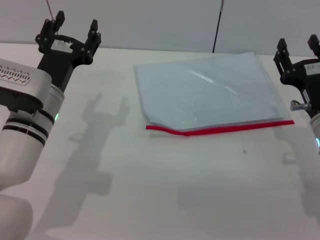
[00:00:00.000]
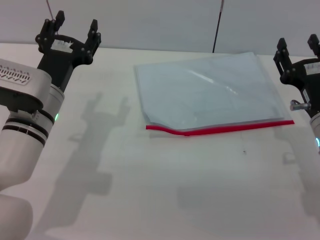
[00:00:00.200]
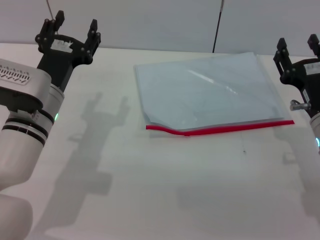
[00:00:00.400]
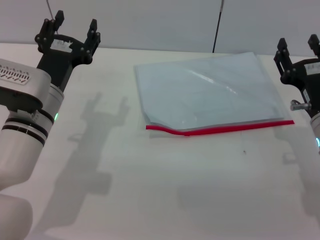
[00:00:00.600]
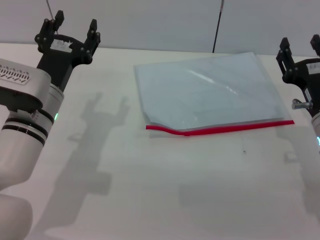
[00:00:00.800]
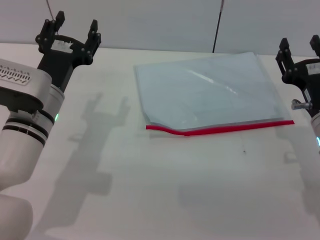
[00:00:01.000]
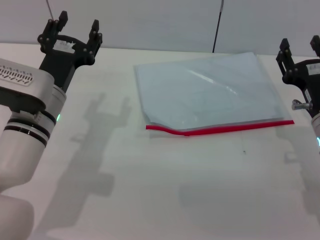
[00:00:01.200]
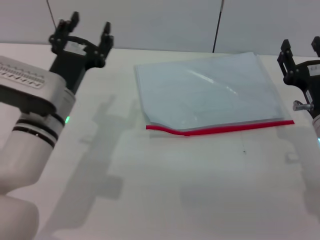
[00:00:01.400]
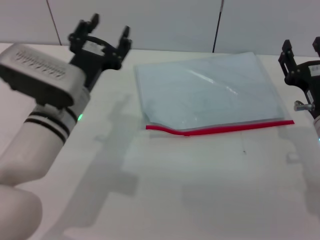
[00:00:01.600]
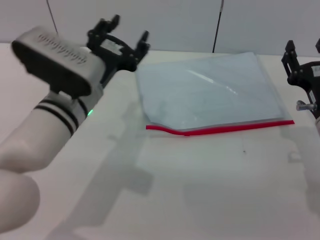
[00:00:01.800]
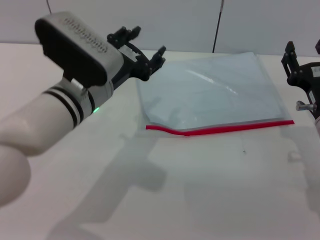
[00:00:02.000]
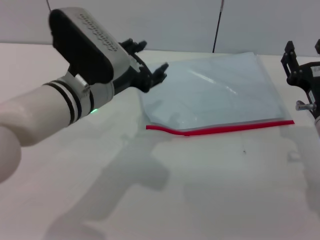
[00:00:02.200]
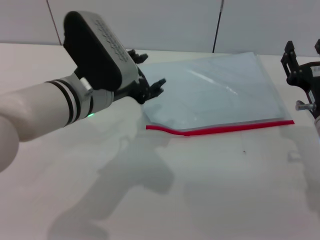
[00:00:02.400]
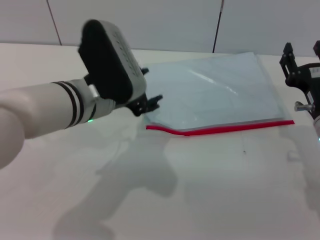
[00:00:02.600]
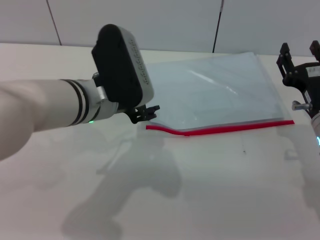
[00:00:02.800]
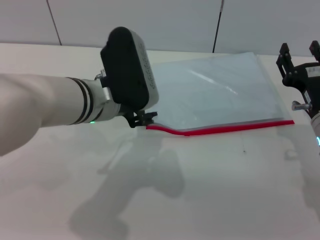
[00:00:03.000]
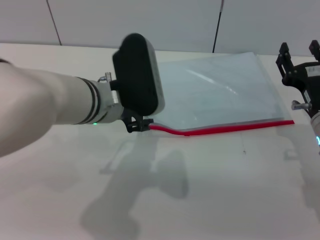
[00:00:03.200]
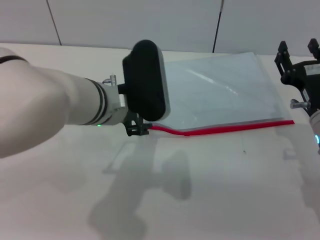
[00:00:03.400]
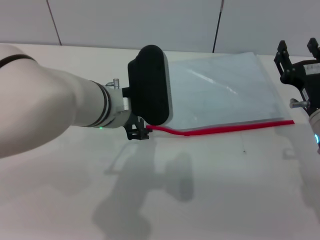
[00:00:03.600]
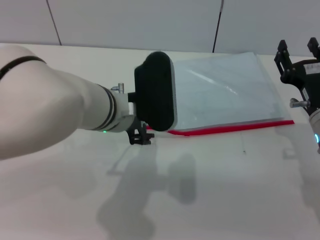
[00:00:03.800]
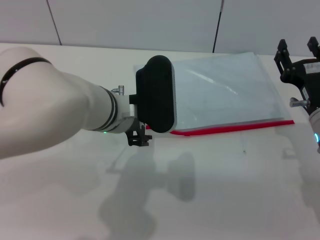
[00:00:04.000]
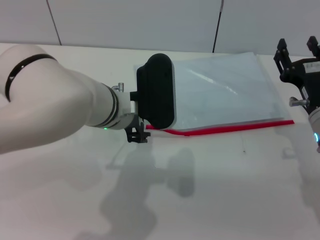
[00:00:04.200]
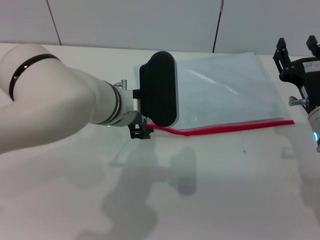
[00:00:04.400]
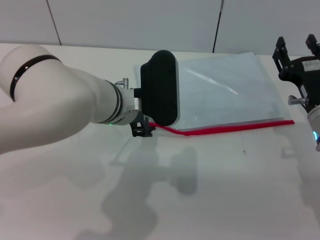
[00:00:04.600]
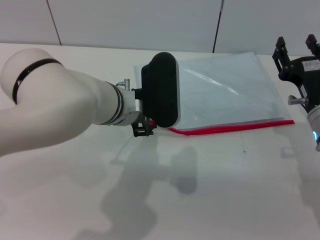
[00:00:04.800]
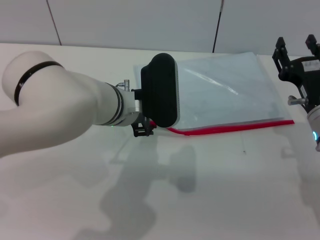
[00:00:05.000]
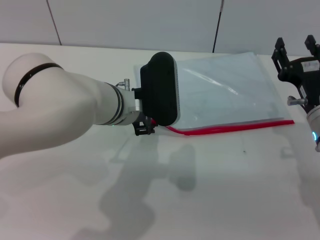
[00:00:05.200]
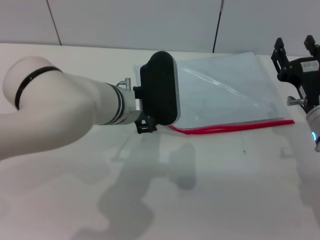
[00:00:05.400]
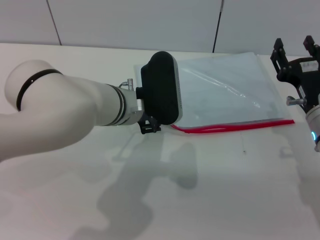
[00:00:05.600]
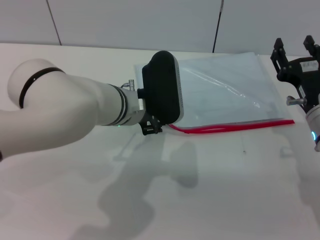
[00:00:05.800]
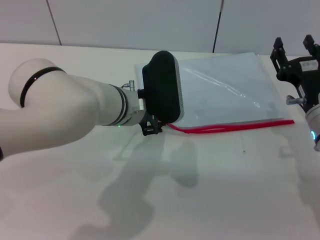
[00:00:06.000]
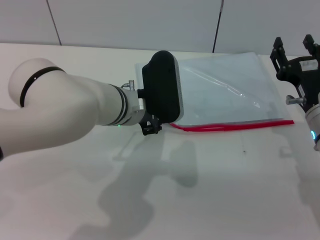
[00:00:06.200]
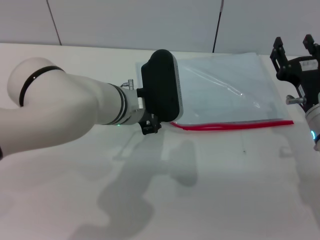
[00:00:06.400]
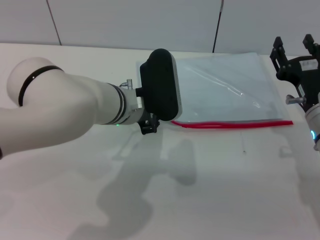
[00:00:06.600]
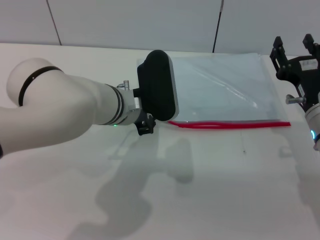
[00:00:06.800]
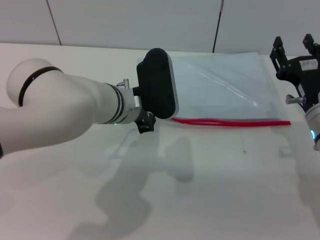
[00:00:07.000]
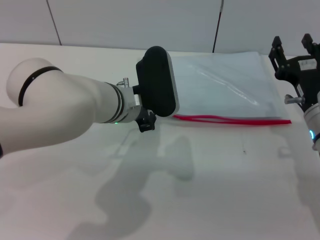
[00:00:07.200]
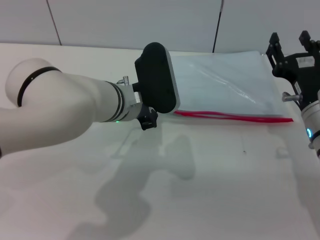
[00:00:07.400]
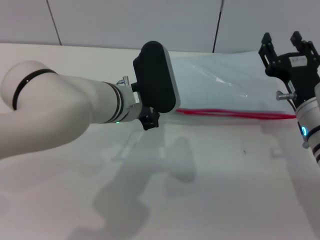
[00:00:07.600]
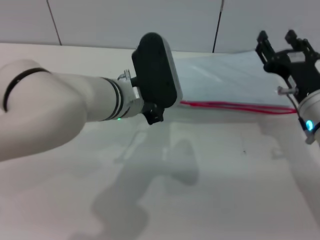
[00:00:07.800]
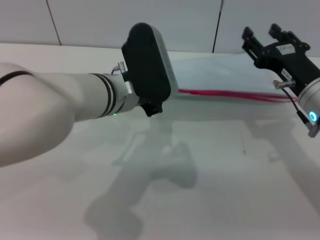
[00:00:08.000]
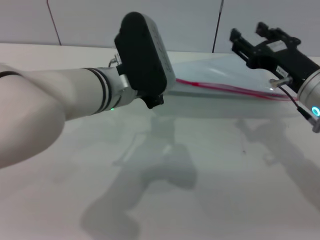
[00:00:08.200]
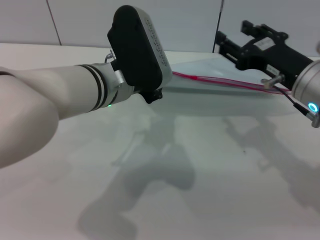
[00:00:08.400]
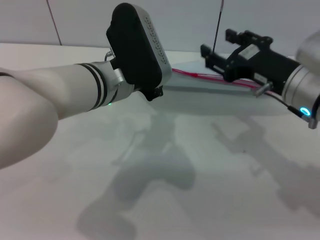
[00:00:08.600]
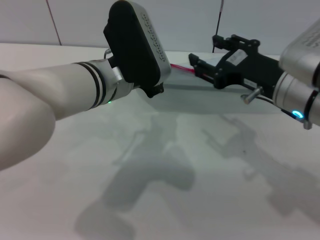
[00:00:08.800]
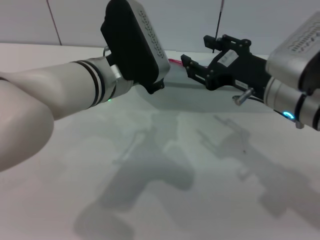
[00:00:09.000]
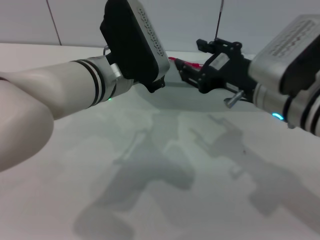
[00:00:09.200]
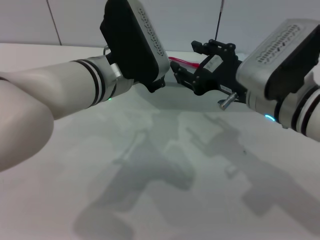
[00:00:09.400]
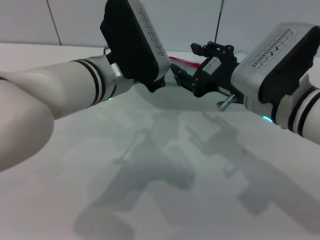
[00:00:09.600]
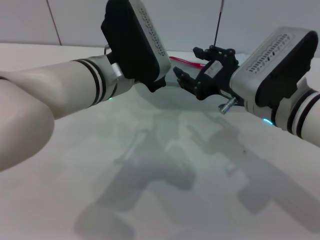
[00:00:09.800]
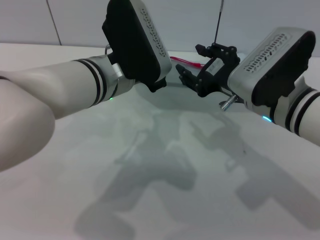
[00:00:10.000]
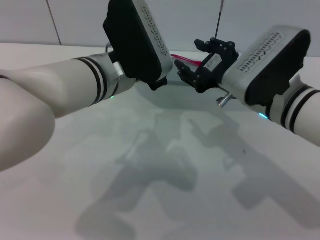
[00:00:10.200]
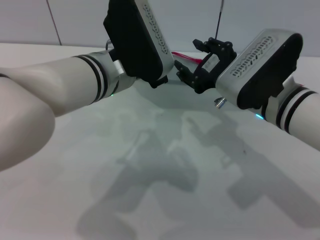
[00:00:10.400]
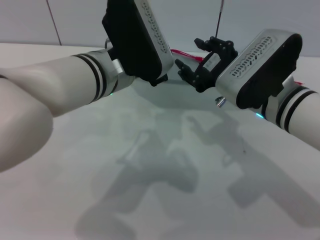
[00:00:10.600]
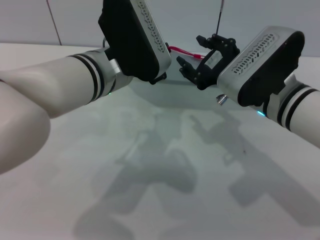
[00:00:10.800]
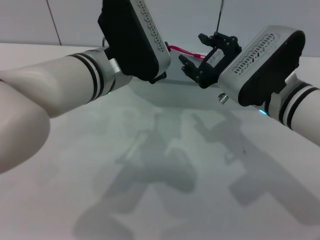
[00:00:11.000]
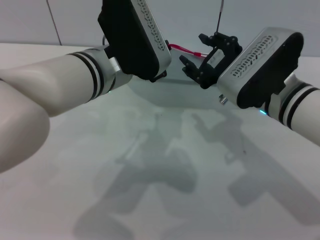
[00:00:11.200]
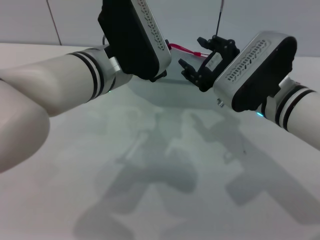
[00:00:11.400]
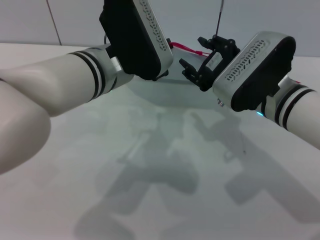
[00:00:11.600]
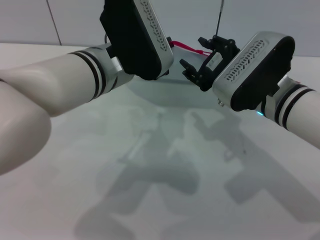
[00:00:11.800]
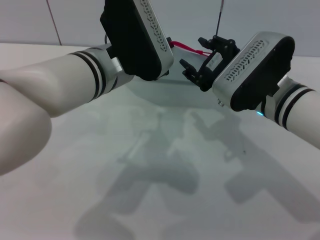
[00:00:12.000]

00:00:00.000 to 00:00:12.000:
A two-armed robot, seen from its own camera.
Step, 00:00:00.000 to 00:00:08.400: Pick up the transparent plastic bag with the left gripper.
00:00:00.000 to 00:00:01.600: There are only small adjustments of the grippers.
00:00:01.600 to 00:00:03.000: The left gripper ends up approximately 5 cm from where it was.
00:00:03.000 to 00:00:06.000: The grippers stay close to where they were, moving slightly.
00:00:06.000 to 00:00:07.600: The left gripper closes its fingers.
00:00:07.600 to 00:00:09.000: The right gripper heads upward, covering about 10 cm. The left gripper travels upward by approximately 5 cm.
00:00:09.000 to 00:00:12.000: There are only small adjustments of the grippers.

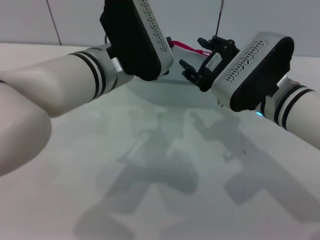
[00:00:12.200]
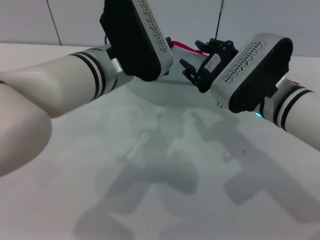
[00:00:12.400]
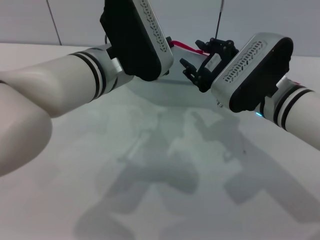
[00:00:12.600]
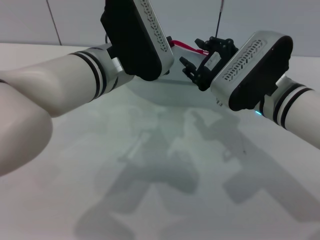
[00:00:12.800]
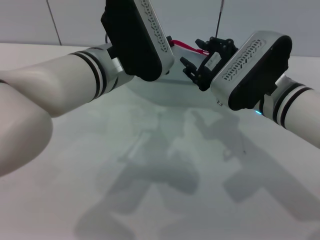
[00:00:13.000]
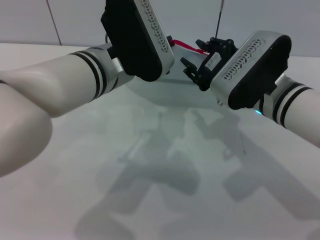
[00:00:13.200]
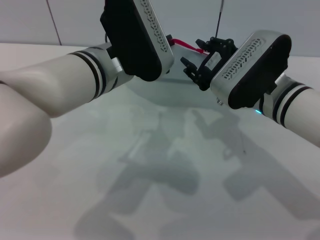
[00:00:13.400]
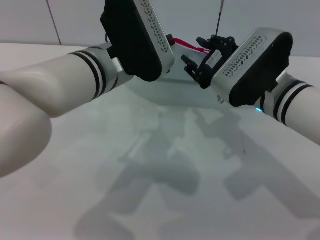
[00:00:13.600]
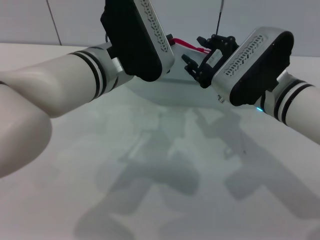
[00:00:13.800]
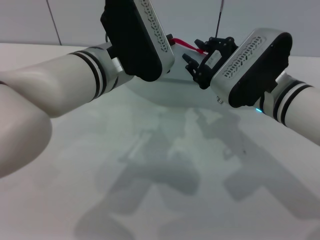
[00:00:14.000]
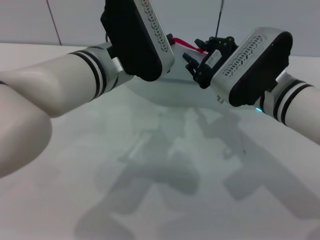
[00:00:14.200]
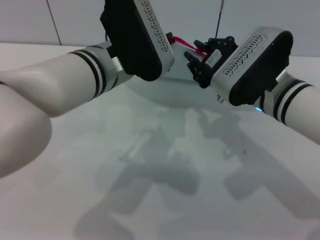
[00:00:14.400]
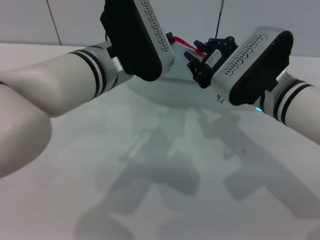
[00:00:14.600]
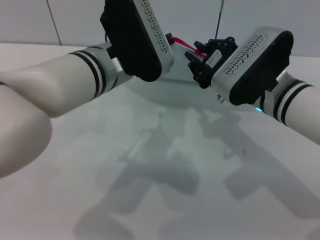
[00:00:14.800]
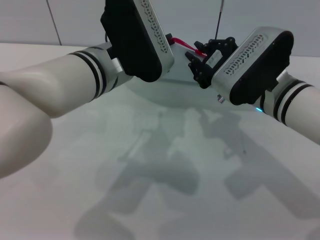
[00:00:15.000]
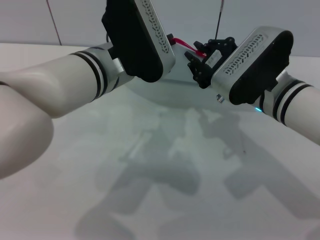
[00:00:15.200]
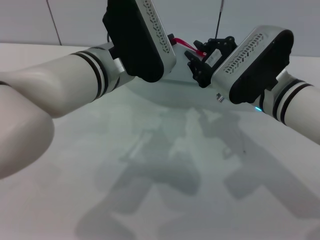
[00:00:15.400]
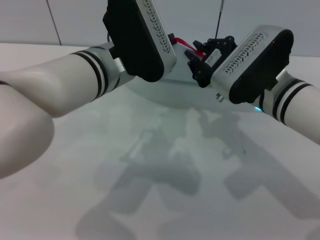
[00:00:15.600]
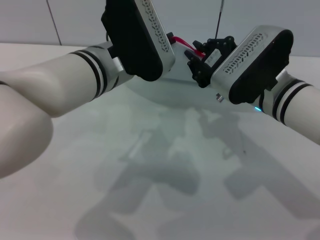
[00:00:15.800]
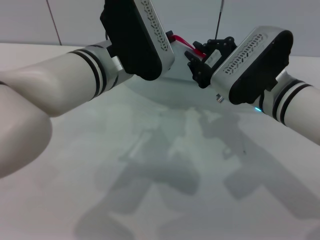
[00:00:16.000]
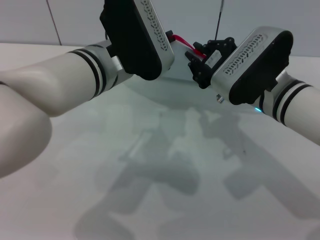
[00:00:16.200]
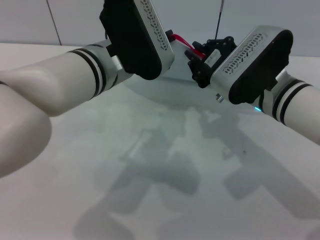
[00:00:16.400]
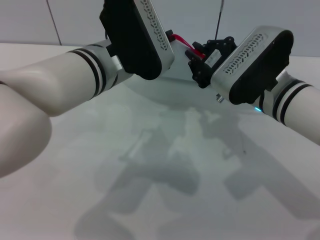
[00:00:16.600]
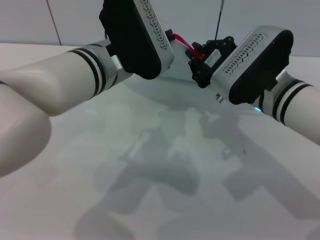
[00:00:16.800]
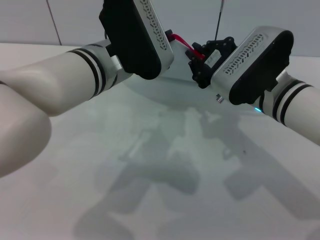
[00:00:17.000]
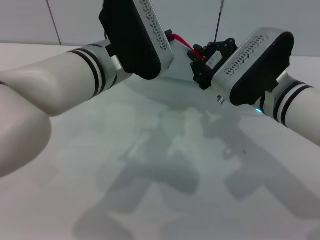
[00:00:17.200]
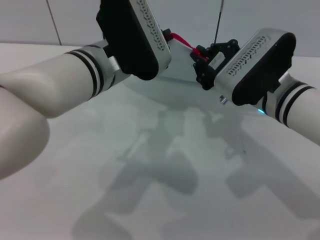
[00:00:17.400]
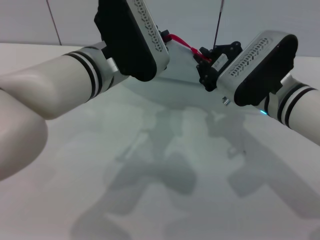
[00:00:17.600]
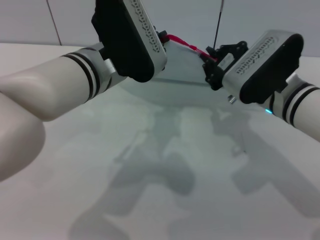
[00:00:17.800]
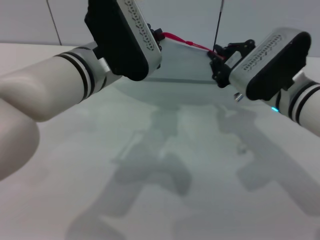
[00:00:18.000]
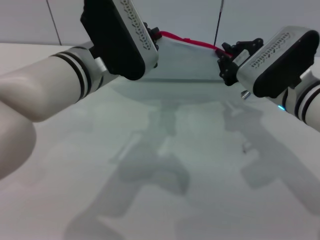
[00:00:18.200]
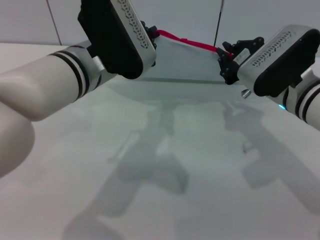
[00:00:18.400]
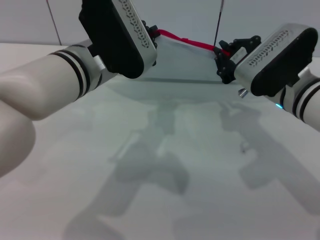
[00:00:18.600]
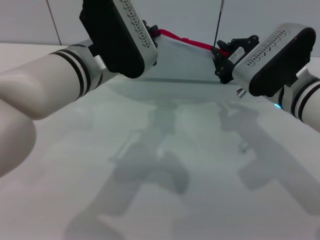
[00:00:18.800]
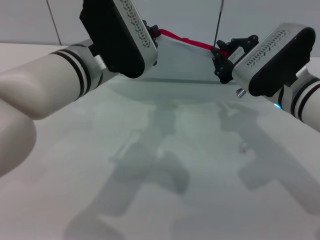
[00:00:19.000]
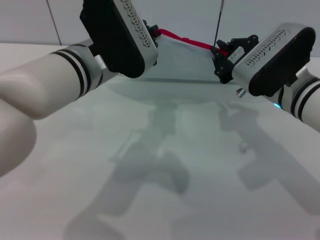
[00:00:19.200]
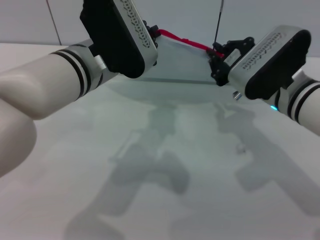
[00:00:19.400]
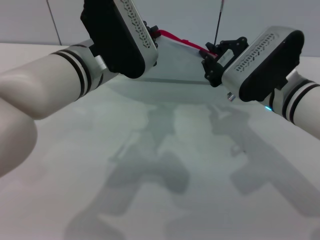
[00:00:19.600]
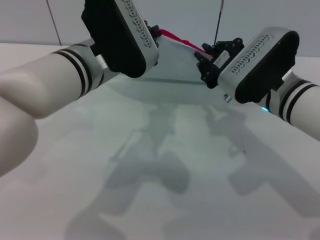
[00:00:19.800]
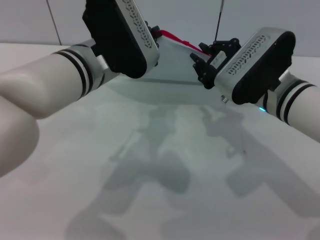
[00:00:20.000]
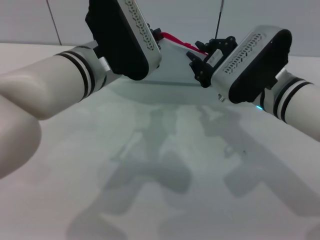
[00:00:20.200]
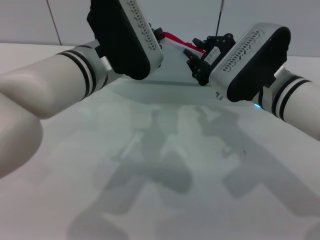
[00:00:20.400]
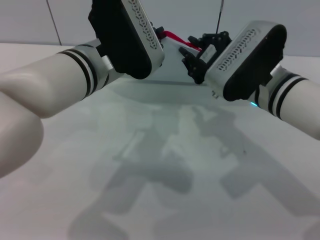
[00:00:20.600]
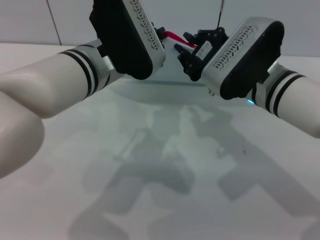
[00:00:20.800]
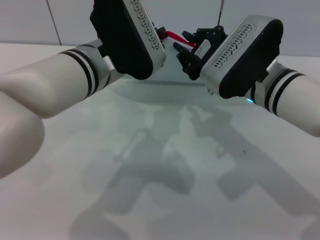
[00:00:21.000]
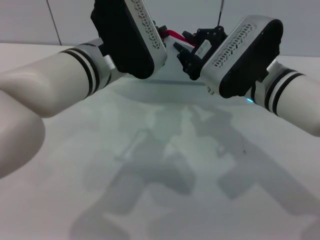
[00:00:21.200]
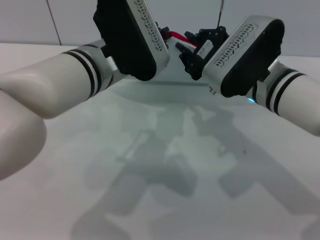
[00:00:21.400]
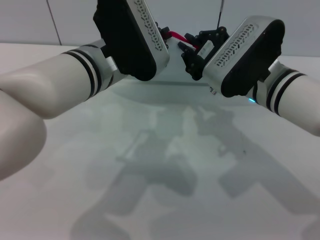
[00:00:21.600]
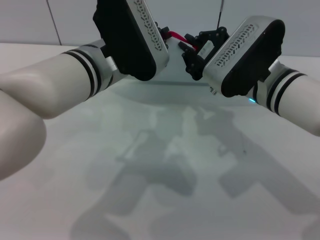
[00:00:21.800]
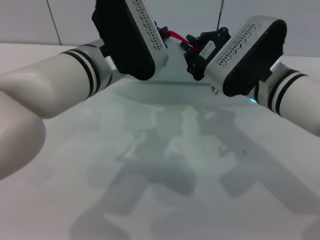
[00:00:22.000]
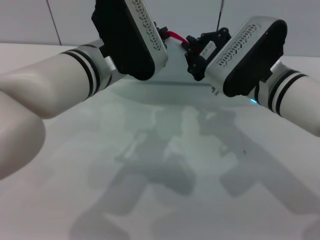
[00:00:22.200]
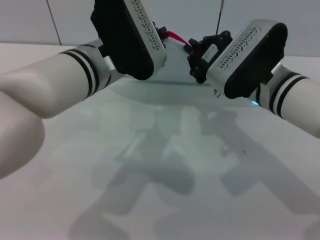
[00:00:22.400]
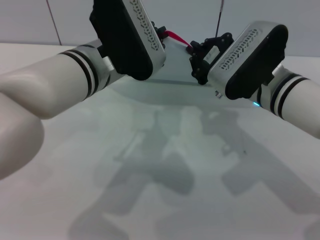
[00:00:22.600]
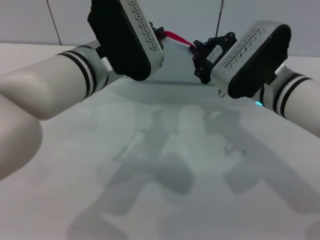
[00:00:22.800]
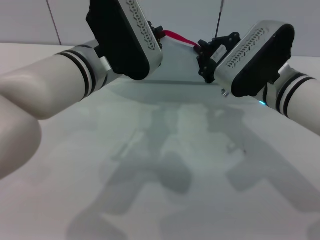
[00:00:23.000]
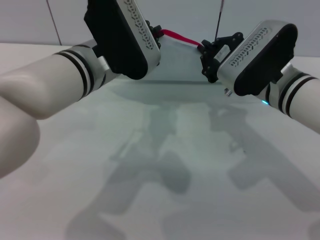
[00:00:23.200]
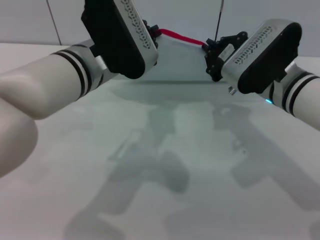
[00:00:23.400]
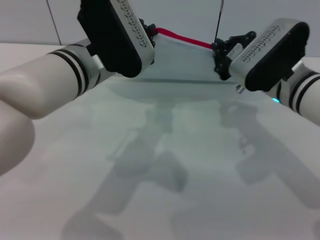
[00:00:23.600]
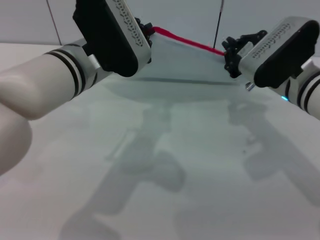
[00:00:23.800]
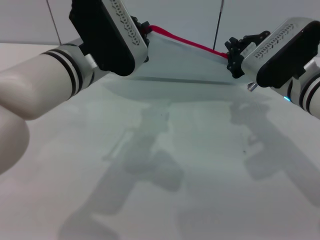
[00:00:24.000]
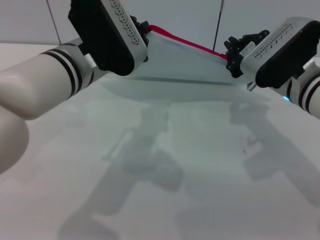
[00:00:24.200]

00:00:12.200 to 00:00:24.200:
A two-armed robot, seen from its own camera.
00:00:12.200 to 00:00:13.800: Both grippers stay about where they are.
00:00:13.800 to 00:00:15.200: The right gripper closes its fingers.
00:00:15.200 to 00:00:16.600: Neither gripper changes place.
00:00:18.200 to 00:00:22.600: The grippers move only a little.
